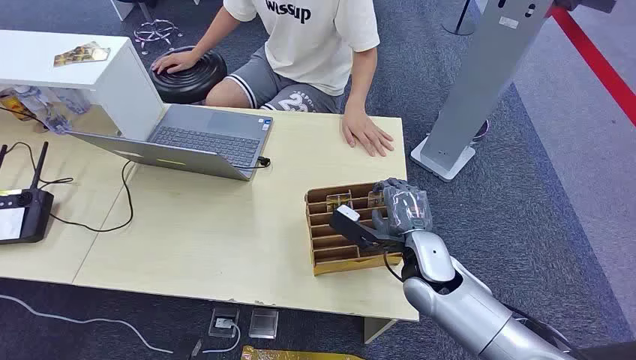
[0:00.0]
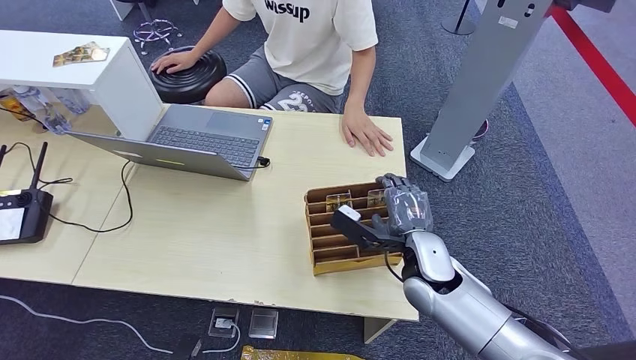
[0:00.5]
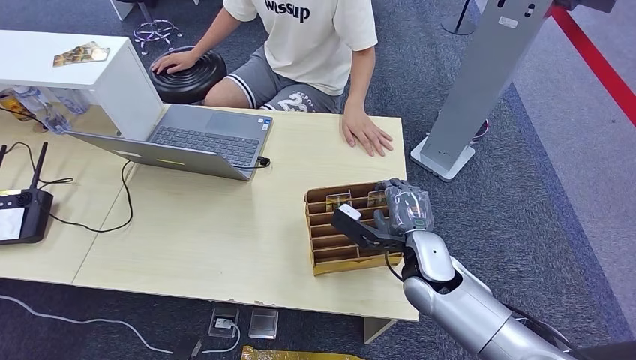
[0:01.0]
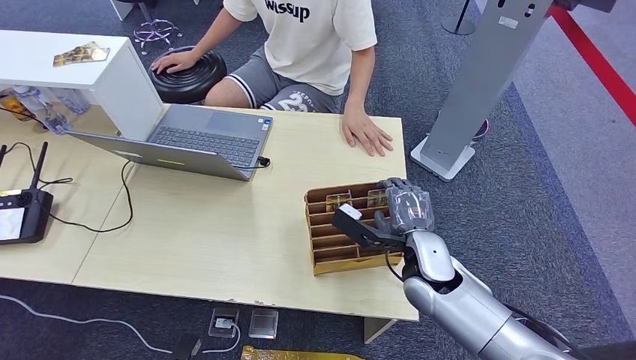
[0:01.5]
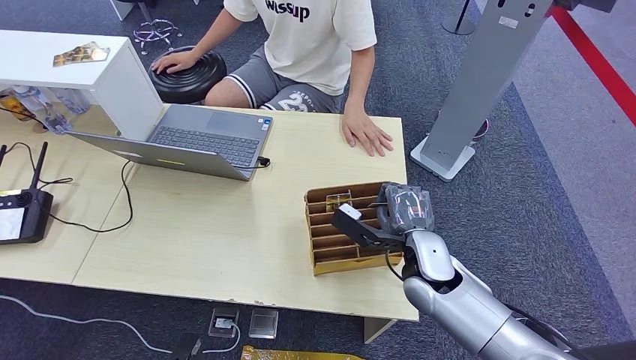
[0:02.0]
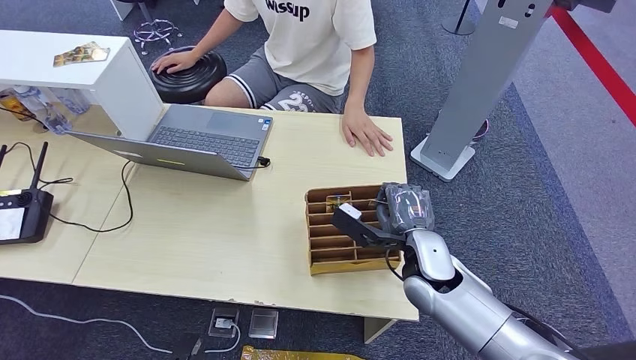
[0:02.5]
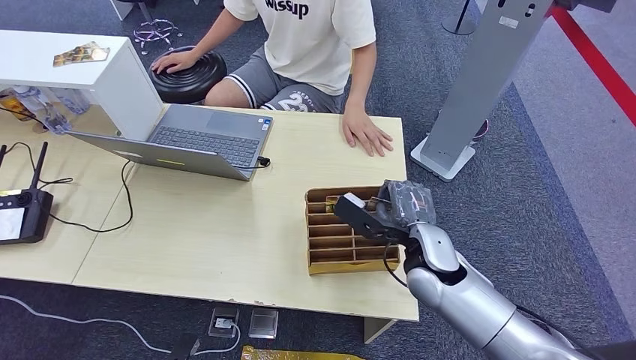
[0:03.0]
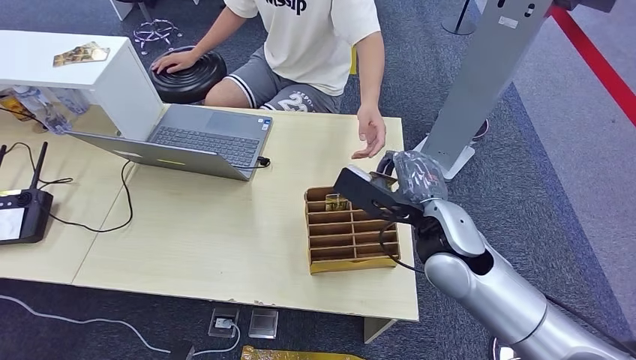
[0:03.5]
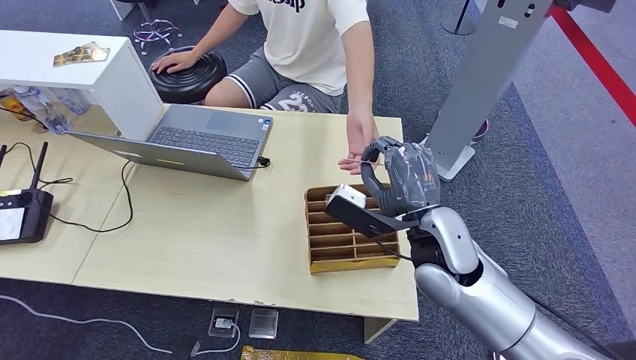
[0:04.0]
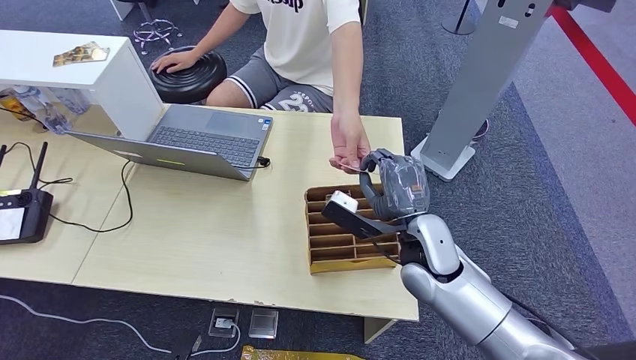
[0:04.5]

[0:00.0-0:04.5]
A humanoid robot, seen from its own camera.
Step, 0:00.0 to 0:03.0: Pick up the room card from the card holder.
Step, 0:03.5 to 0:04.5: Hand the room card to the target.
